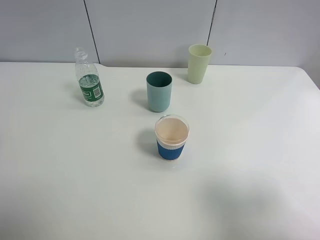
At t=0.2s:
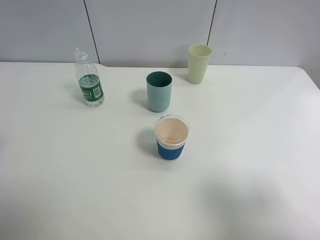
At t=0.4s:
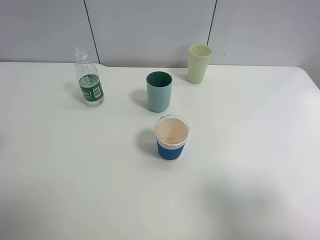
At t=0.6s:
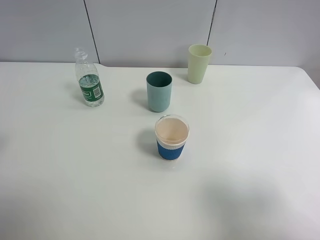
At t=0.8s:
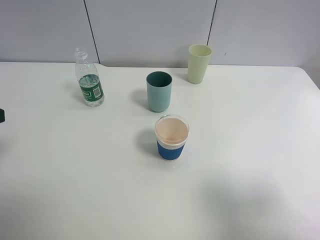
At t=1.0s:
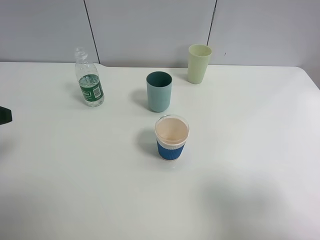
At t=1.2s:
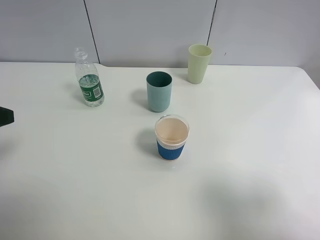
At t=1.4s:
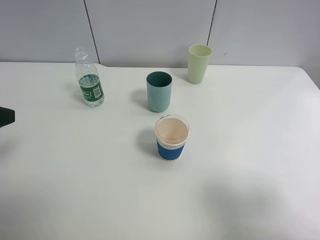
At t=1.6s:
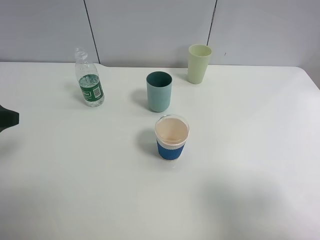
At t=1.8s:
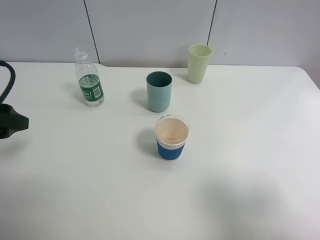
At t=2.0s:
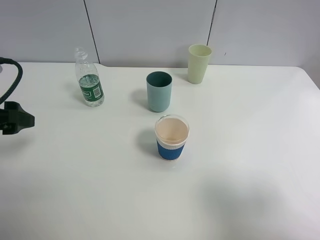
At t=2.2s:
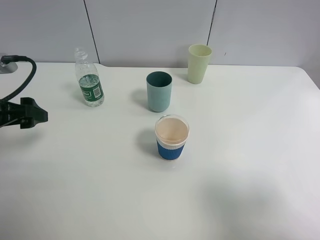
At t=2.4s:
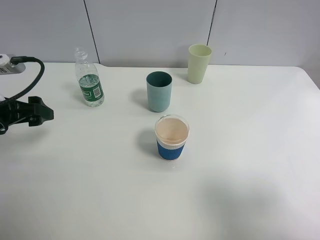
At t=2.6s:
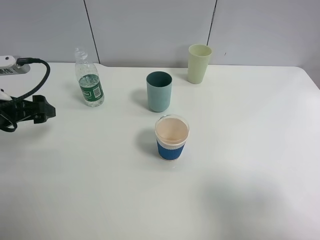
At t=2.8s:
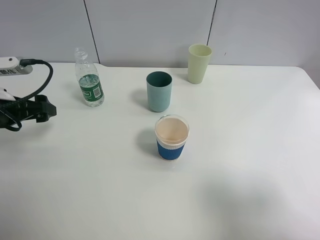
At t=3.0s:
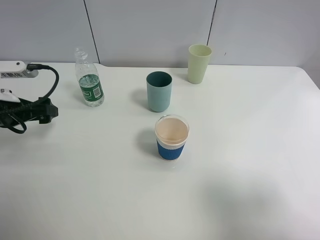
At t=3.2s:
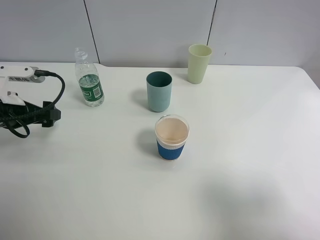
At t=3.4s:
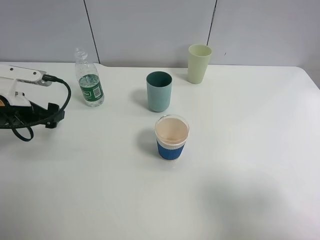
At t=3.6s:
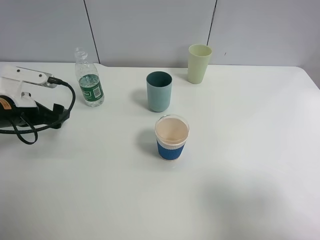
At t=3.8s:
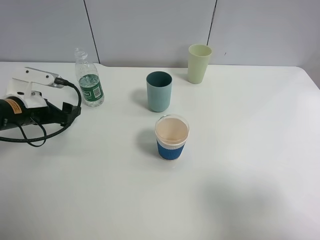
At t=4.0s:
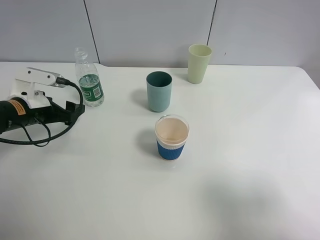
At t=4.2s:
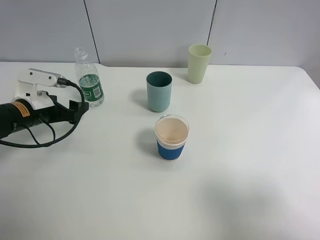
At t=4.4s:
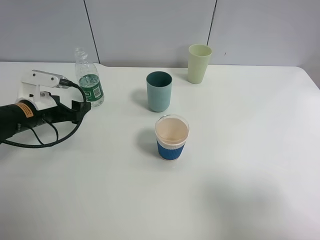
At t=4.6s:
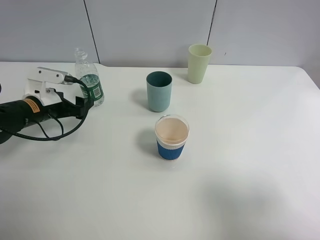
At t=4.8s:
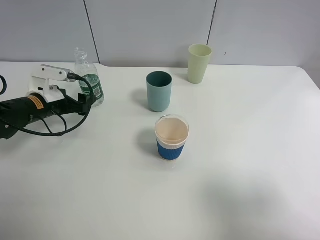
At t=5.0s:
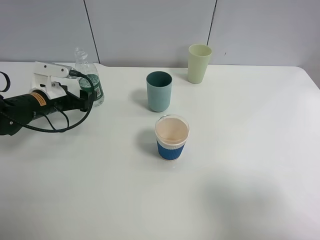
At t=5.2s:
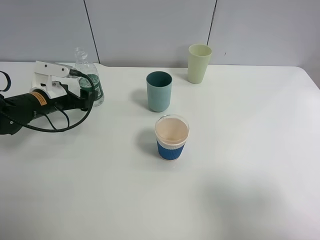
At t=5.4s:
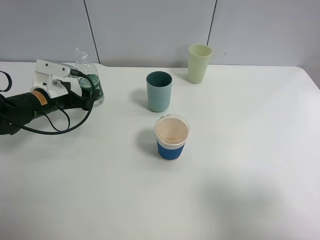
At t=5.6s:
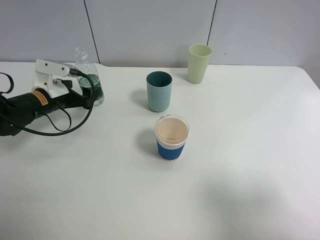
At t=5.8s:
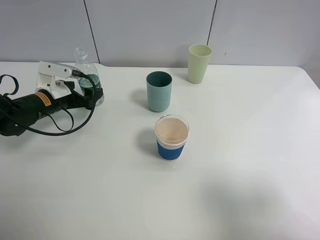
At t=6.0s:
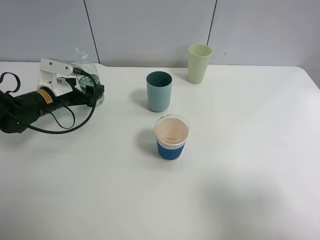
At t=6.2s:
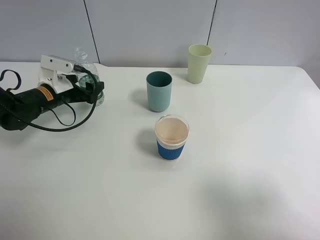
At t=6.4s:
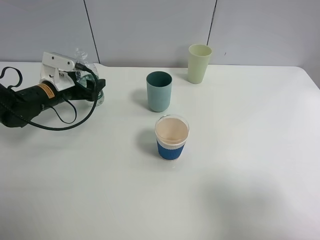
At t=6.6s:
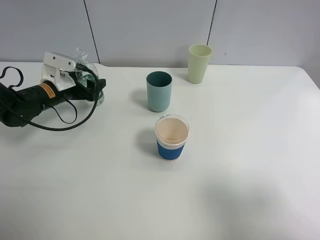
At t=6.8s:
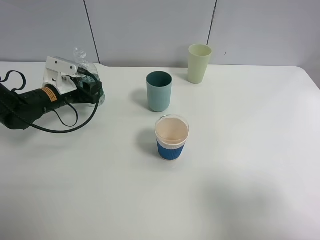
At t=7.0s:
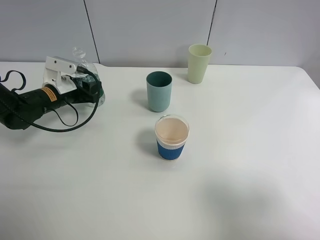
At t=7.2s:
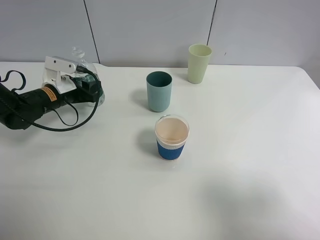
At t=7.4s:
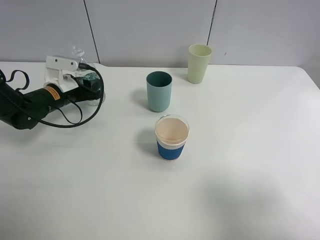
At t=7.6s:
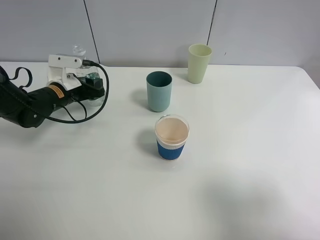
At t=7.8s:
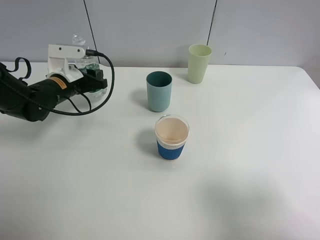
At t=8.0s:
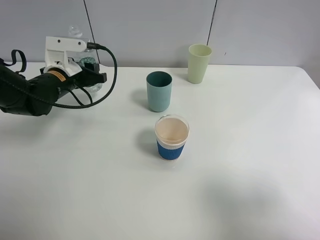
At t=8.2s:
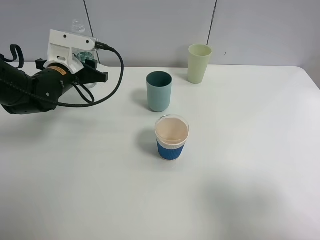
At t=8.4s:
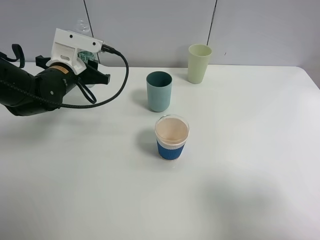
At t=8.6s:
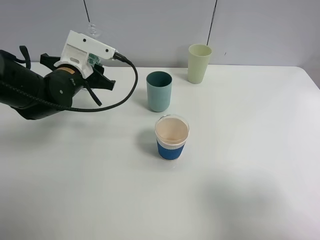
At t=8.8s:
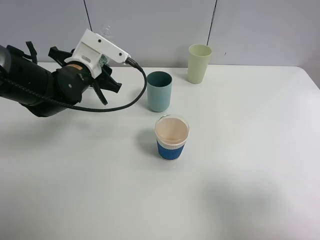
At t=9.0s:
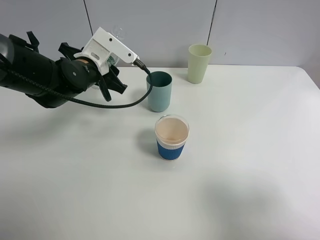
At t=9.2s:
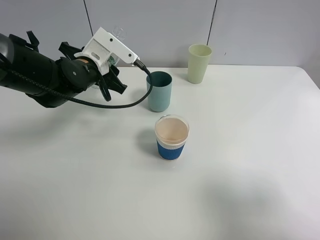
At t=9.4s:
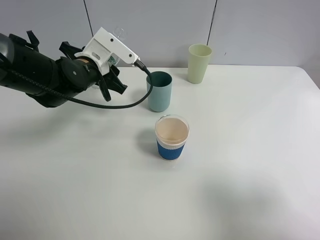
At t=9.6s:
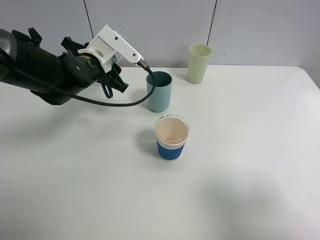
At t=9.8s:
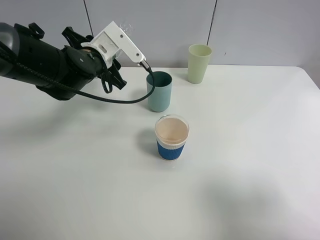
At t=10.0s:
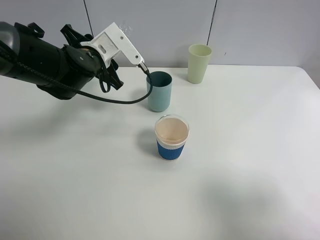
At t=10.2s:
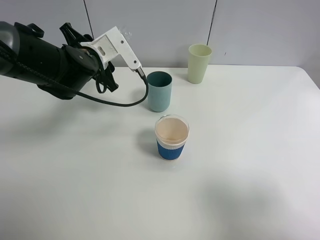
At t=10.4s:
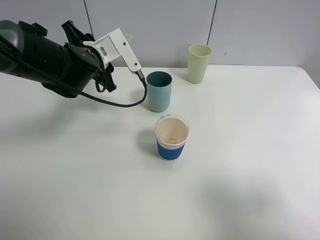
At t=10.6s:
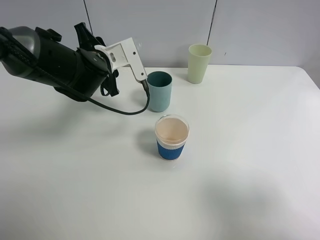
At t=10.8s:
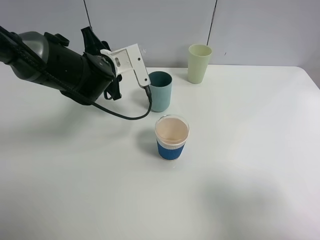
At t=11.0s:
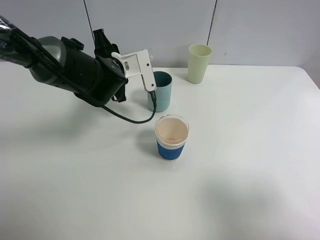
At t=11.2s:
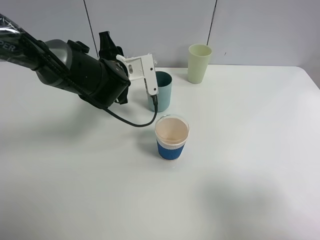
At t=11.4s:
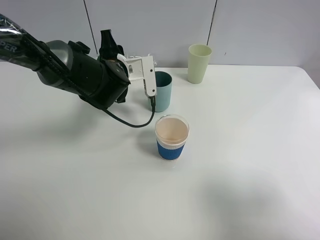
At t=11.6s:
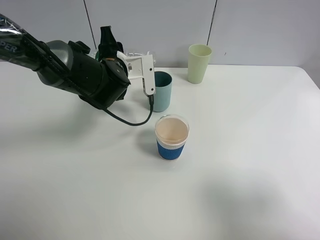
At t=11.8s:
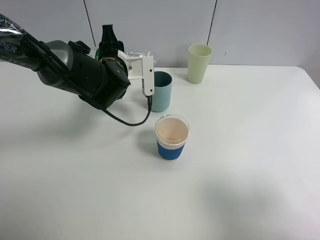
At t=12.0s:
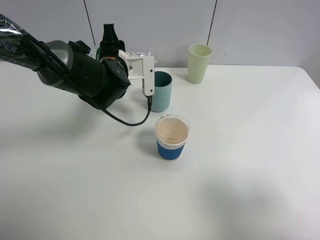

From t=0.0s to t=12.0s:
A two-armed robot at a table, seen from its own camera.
Task of the whole recording: use a clamp to hold the bottle of the drink, pour the beverage into a random cup, then clamp the cup containing the drink and pour the drink into another random cup.
Step, from t=0.0s to t=8.0s: Pick up the water bottle with left gripper.
From t=0.0s to t=1.6s: The left gripper ends up approximately 5 cm from where it was.
From t=1.6s to t=3.0s: The left gripper is displaced forward and downward by approximately 10 cm.
From t=3.0s to t=4.4s: The left gripper travels downward by approximately 5 cm.
From t=4.4s to t=6.0s: The left gripper heads forward, covering some 5 cm.
From t=6.0s to t=7.6s: The left gripper closes.
From t=7.6s to t=9.0s: The left gripper moves to the right and upward, about 10 cm.

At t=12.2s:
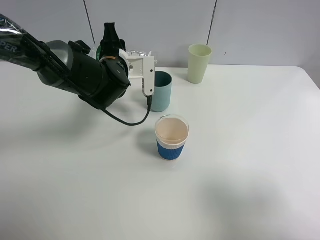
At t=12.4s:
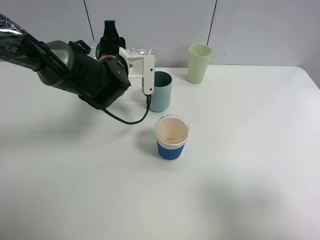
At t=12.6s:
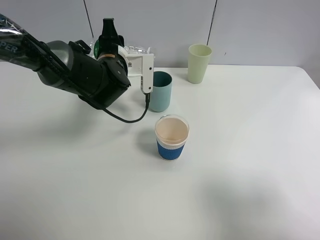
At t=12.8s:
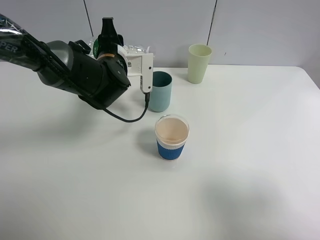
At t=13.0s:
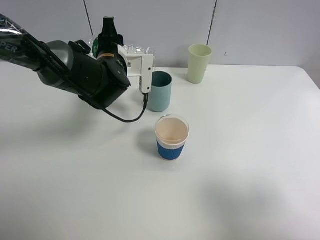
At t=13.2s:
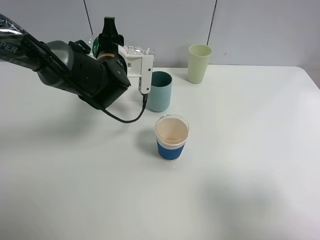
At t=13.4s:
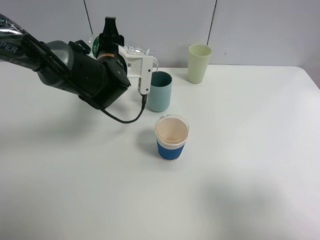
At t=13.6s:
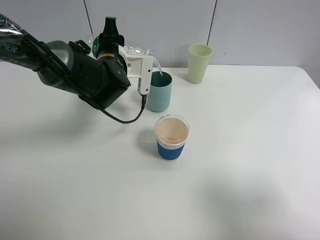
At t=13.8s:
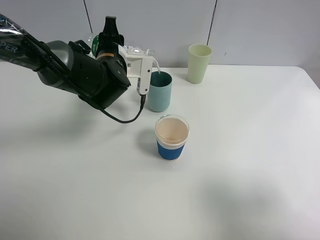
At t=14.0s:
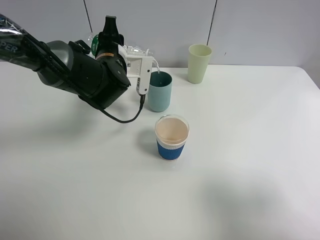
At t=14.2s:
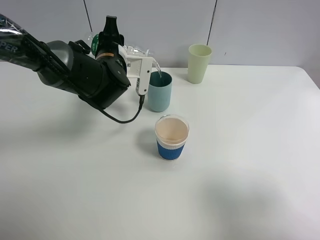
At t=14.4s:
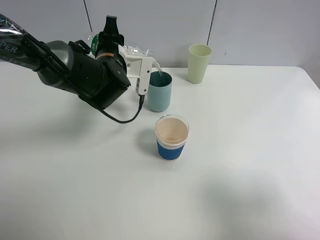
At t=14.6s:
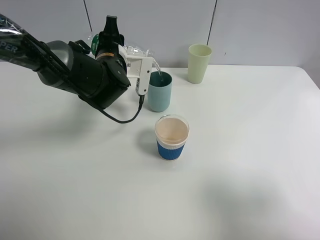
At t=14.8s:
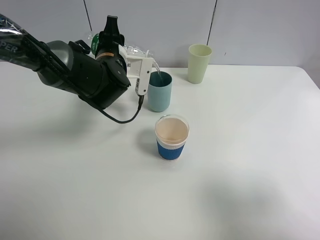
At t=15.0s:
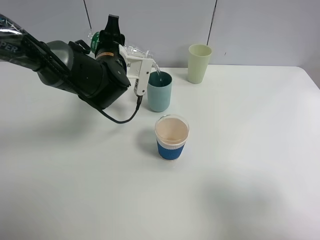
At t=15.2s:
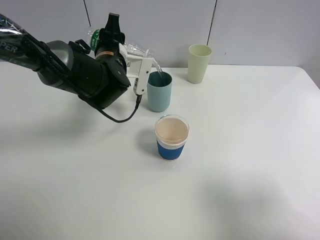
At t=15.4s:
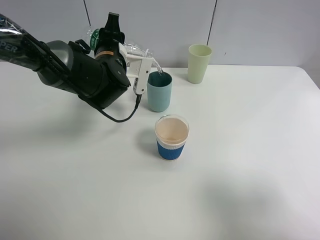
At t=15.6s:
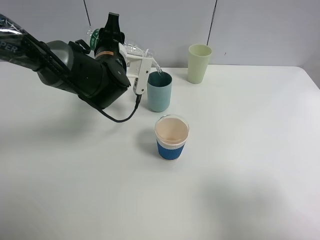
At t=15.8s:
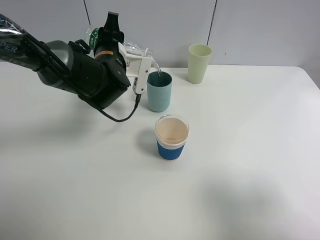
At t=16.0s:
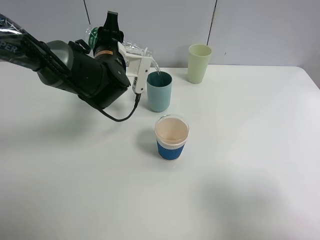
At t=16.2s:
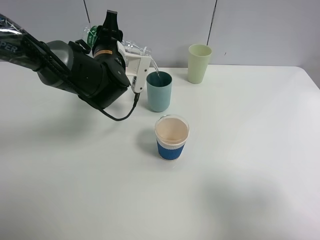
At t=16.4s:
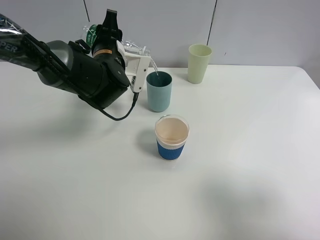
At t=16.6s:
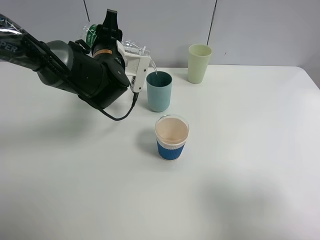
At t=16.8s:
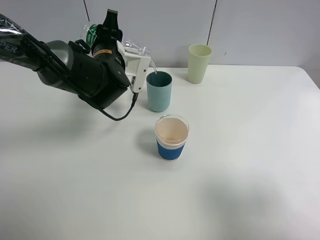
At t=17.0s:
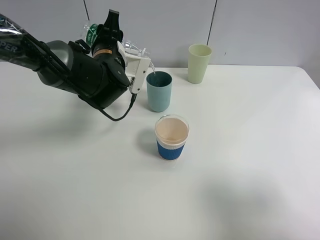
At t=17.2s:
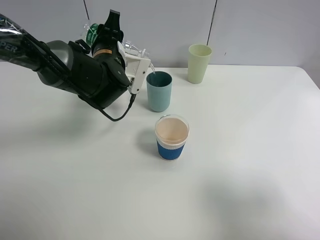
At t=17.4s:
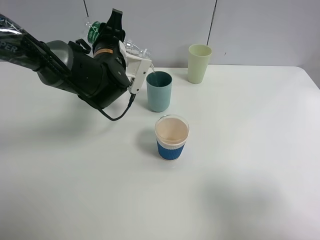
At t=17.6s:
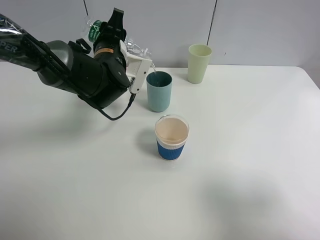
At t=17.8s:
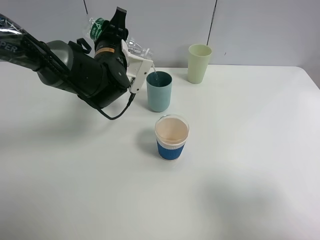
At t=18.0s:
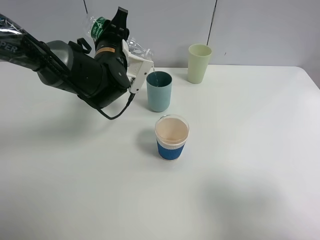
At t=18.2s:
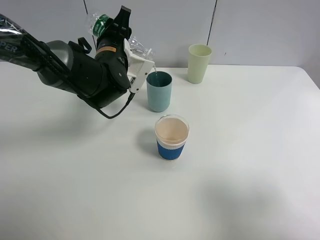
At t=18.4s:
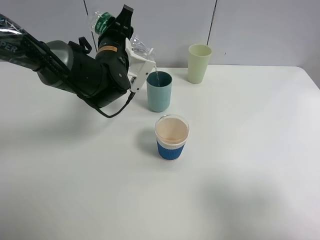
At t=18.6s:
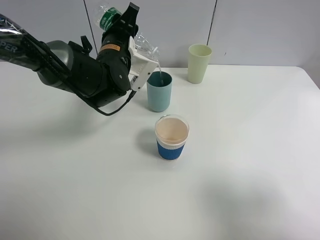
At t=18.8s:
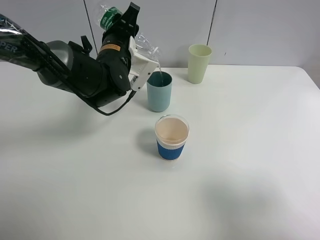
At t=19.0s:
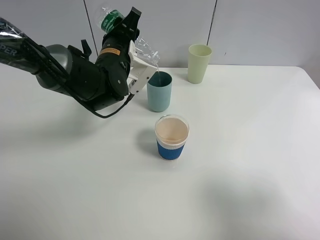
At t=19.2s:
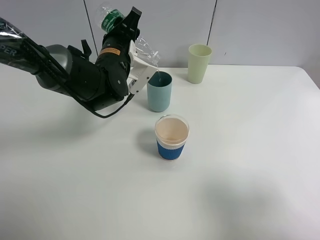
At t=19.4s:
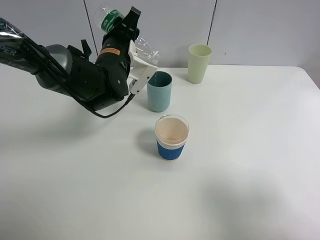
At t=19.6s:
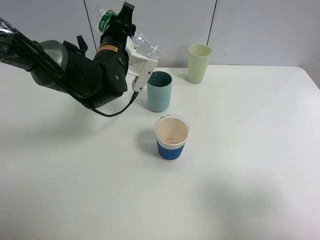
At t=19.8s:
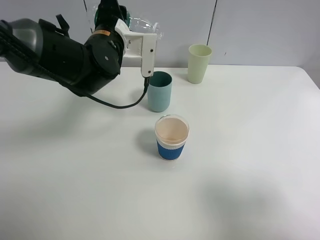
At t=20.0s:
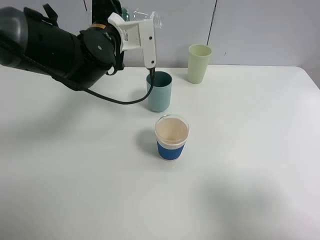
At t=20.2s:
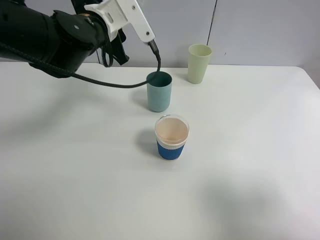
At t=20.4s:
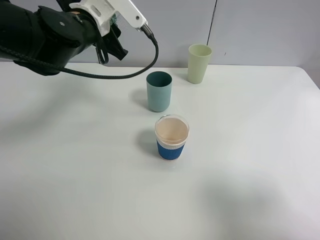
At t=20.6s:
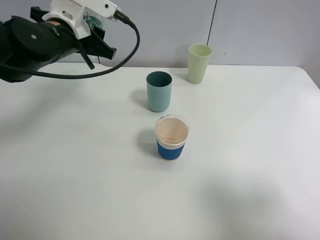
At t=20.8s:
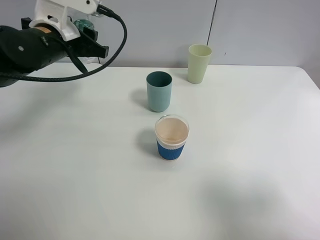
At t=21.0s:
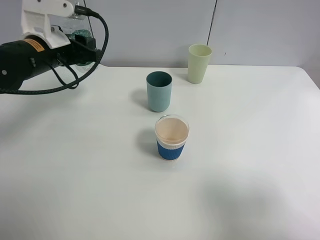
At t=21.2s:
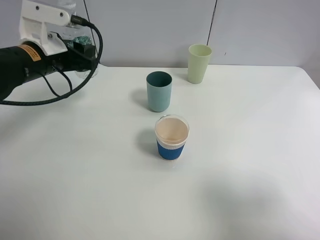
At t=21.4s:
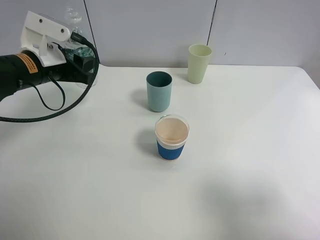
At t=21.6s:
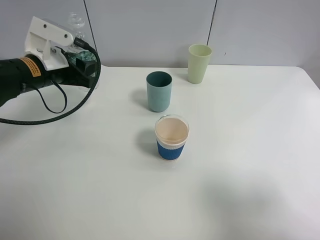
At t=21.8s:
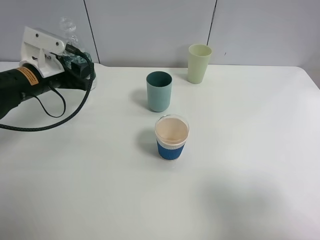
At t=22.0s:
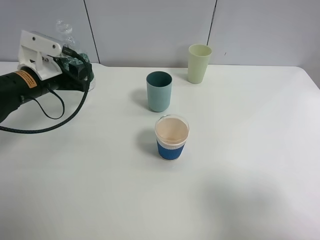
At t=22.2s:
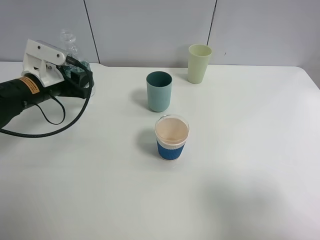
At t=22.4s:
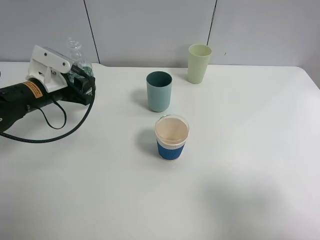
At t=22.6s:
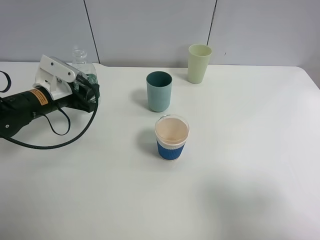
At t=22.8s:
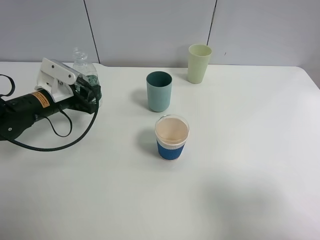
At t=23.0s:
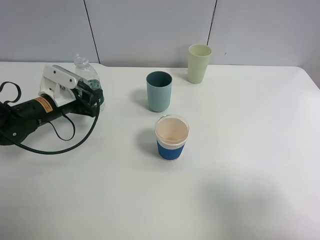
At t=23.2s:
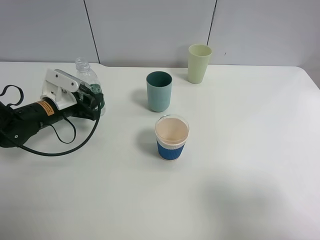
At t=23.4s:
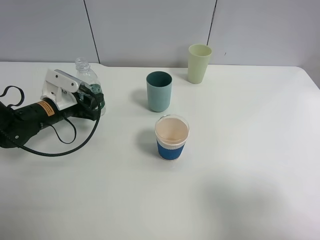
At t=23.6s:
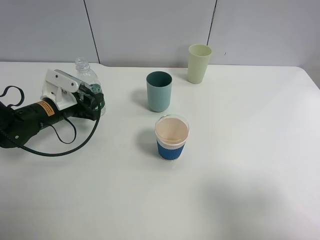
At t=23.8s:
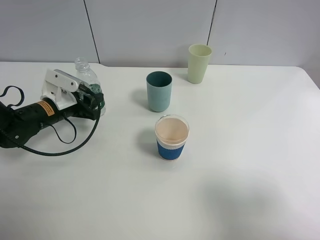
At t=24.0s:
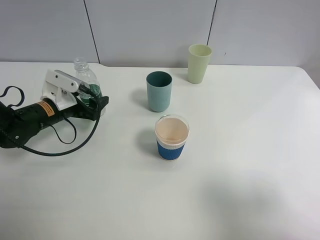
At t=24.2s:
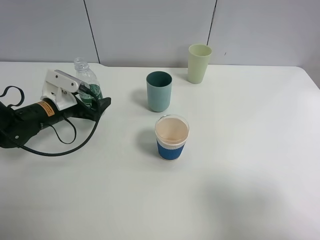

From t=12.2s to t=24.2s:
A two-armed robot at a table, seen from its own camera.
Task of the whole recording: use a clamp to hold the bottle of the drink, pour the beverage into a random cup, then clamp the cup containing the drink and pour the drink into another random cup.
Step, from t=12.2s to t=19.8s: Pour the water into the blue plastic cup with left gripper.
Step, from t=20.0s to t=24.2s: Place the water bottle on the table with left gripper.
From t=12.2s to t=15.2s: The grippers stay close to where they were, moving slightly.
From t=15.2s to t=16.6s: Both grippers stay about where they are.
From t=16.6s to t=18.2s: The grippers move only a little.
From t=19.8s to t=21.2s: The left gripper moves to the left, approximately 10 cm.
From t=21.2s to t=22.6s: The left gripper shifts some 10 cm downward.
From t=22.6s to t=24.2s: The left gripper opens.
